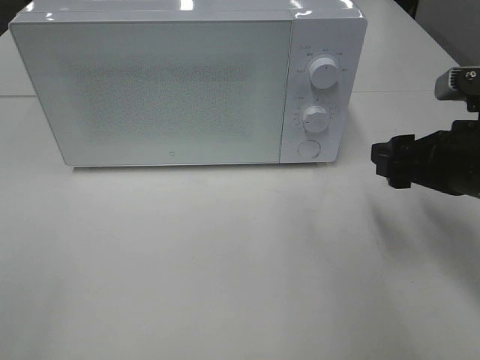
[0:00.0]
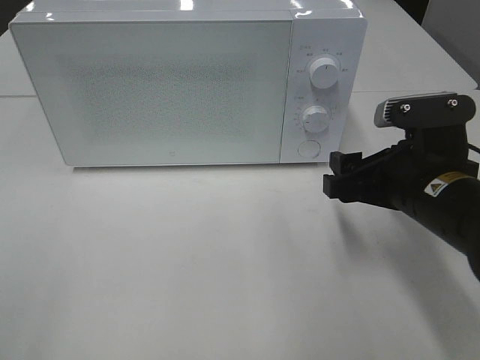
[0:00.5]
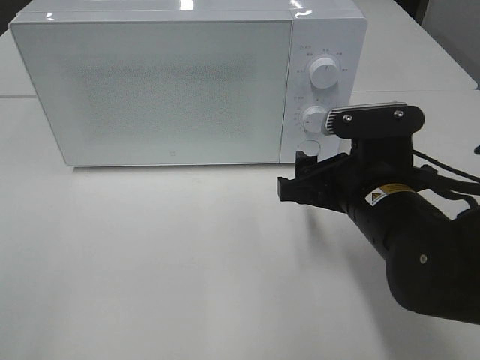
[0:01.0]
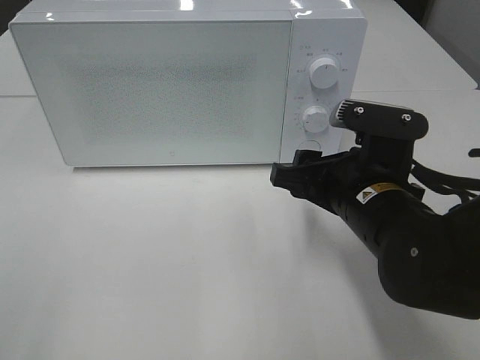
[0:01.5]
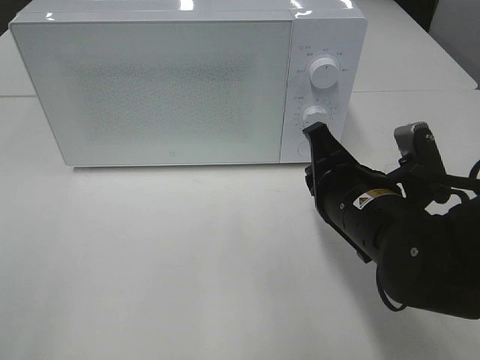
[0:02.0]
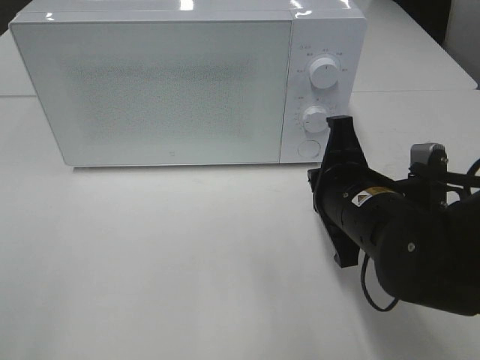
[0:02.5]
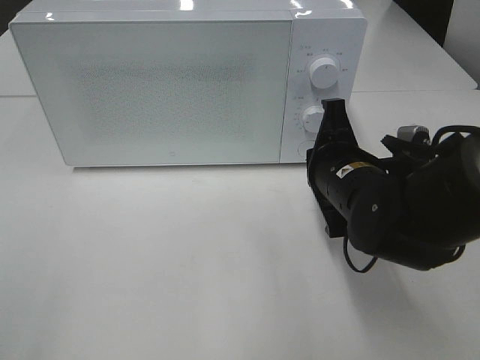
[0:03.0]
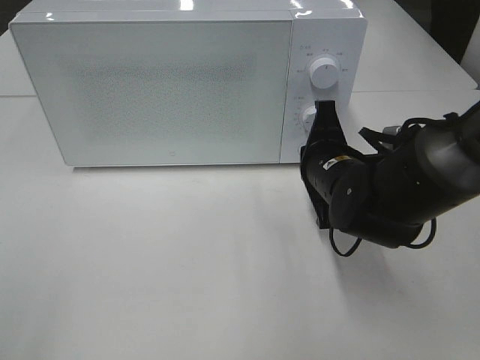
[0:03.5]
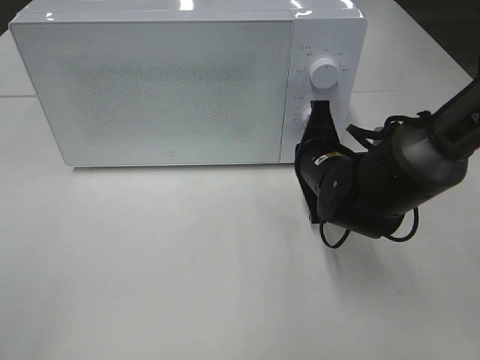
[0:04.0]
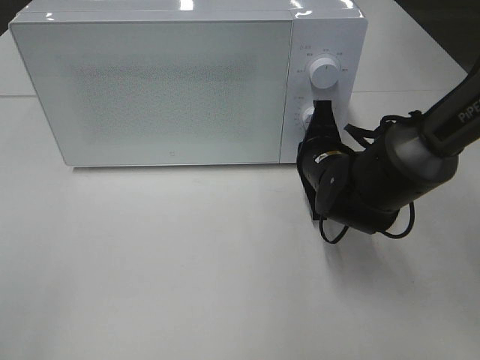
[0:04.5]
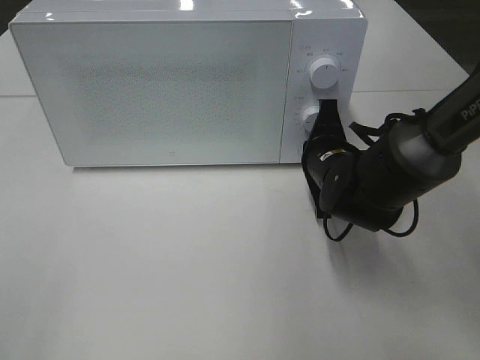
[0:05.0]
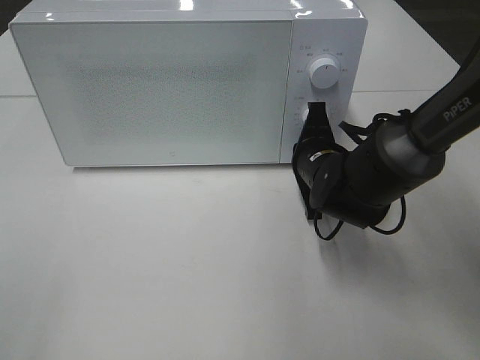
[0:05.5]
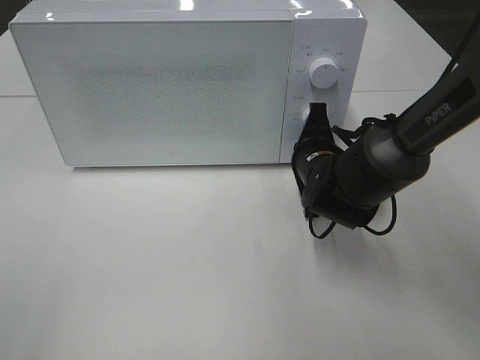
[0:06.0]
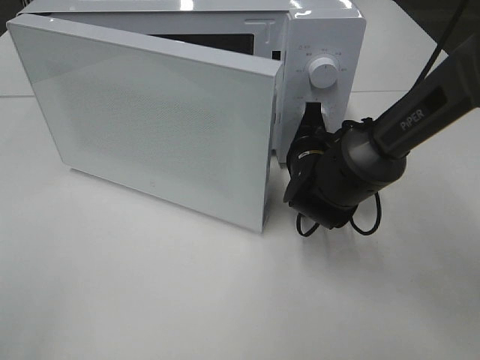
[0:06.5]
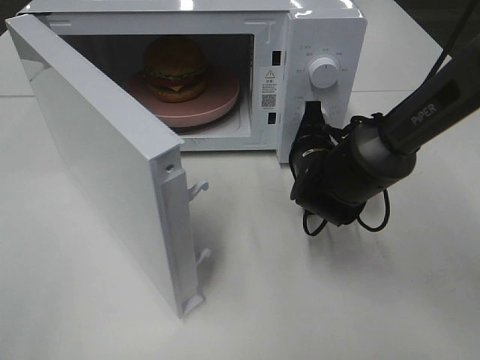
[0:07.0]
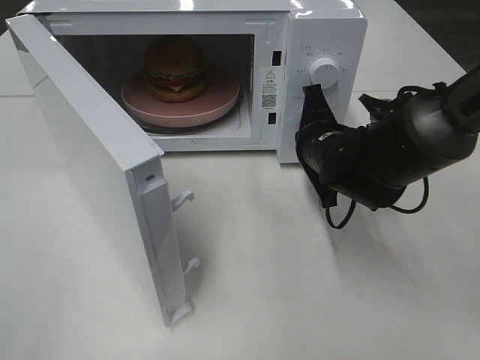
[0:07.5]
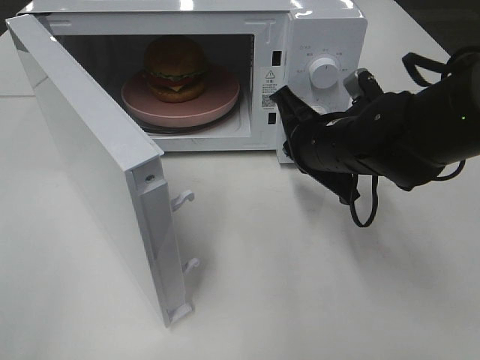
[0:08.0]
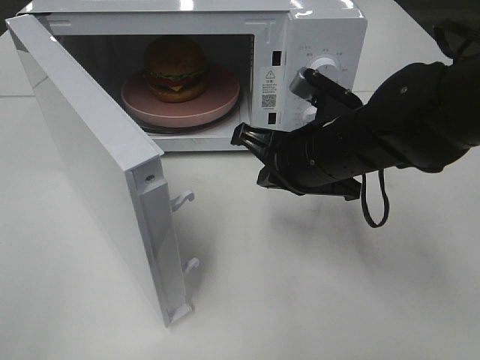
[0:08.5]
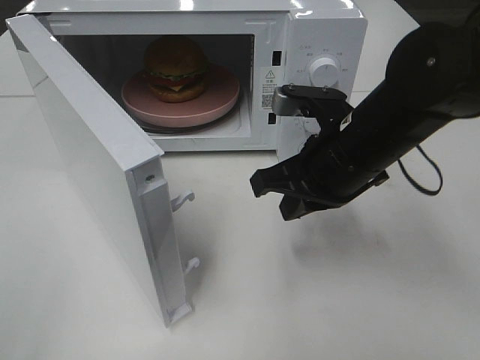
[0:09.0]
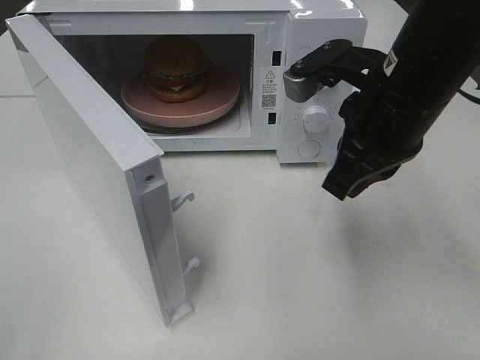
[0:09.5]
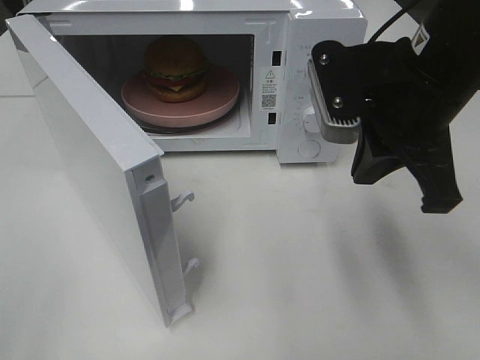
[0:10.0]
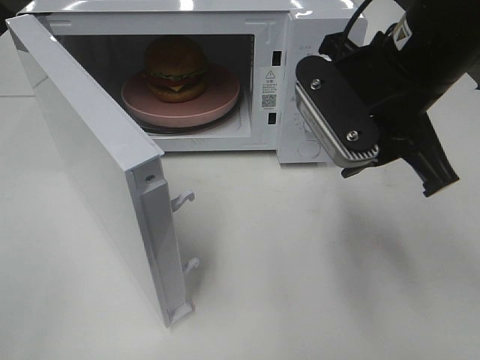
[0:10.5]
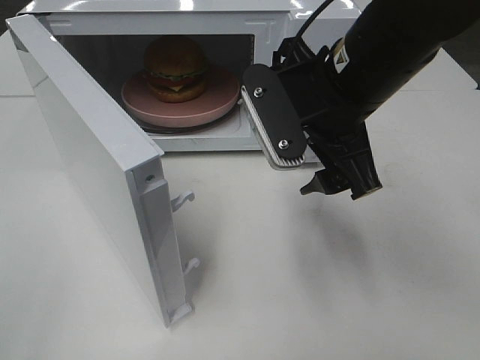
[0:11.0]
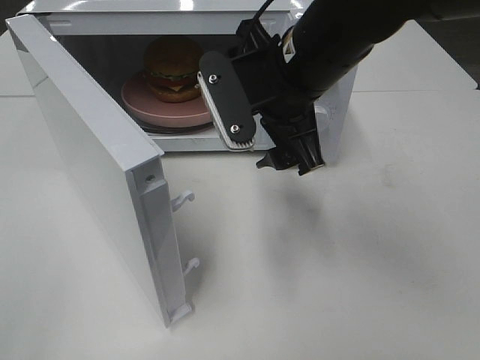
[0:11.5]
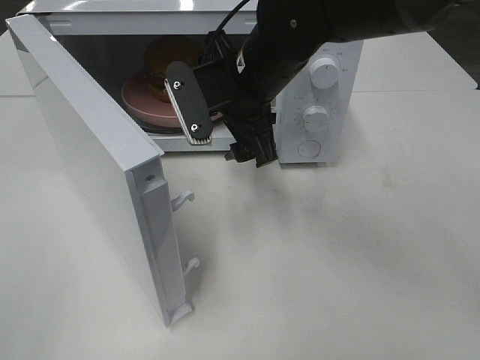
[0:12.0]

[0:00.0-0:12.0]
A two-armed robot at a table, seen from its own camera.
Task of the whole recording: Heat the burger.
Step, 0.0 to 7.0 s: Right hand: press the switch.
0.0 to 2.0 s: The right gripper heads to the left, covering some 10 cm, and closes.
2.0 to 4.0 s: The right gripper goes about 10 cm forward.
4.0 to 6.0 s: The grippers make only small movements.
6.0 to 8.0 s: The right gripper travels upward by roughly 5 cm.
8.0 to 10.0 s: The right gripper heads upward and backward, covering approximately 15 cm.
10.0 to 12.0 s: The right gripper heads to the left, forward and downward, covering approximately 15 cm, and opens.

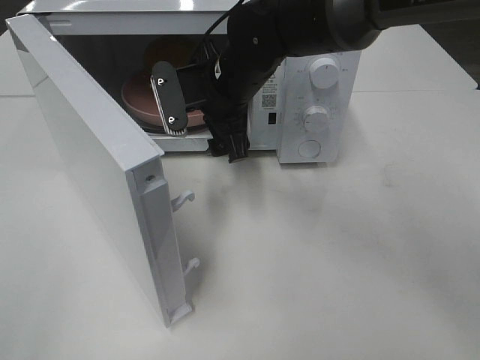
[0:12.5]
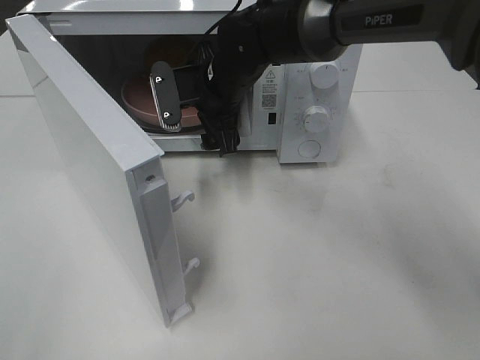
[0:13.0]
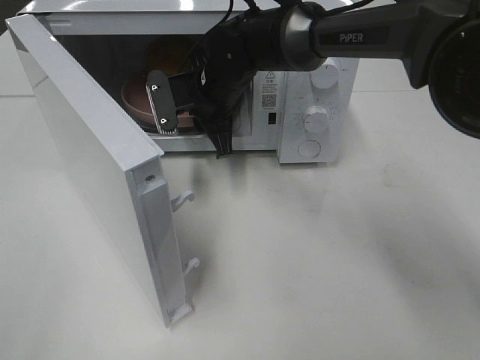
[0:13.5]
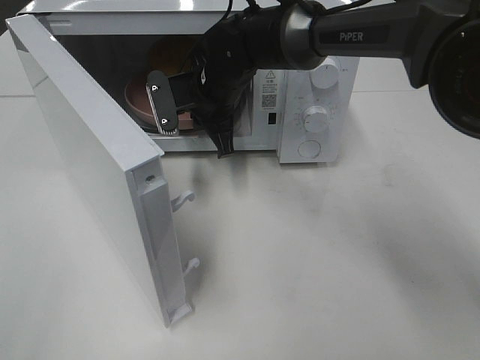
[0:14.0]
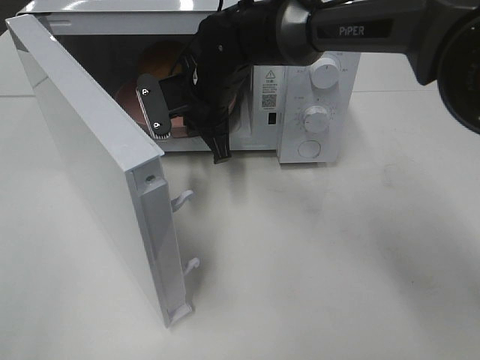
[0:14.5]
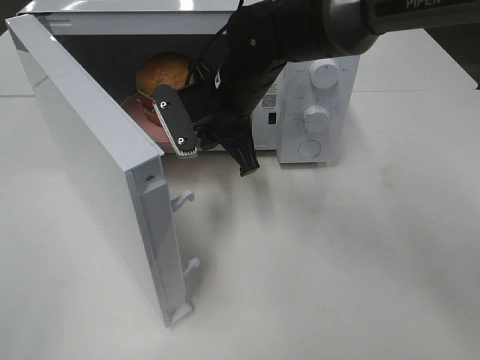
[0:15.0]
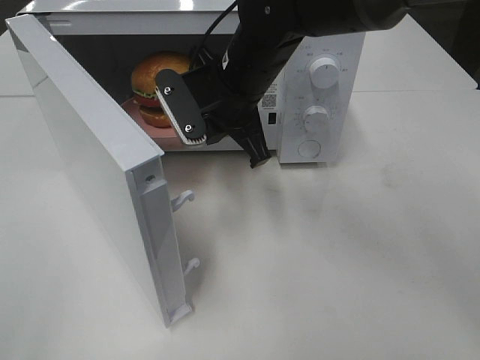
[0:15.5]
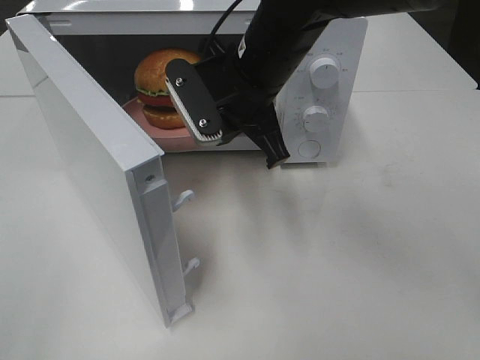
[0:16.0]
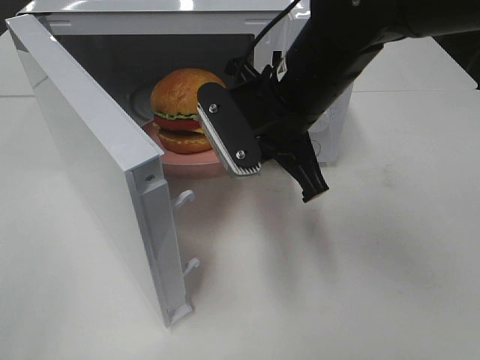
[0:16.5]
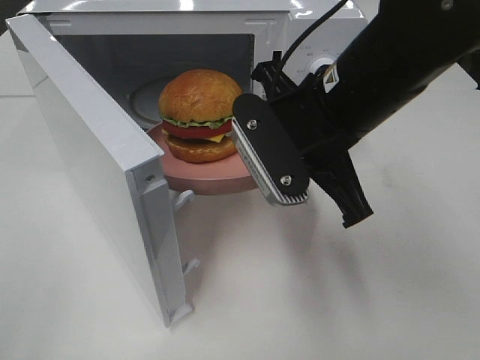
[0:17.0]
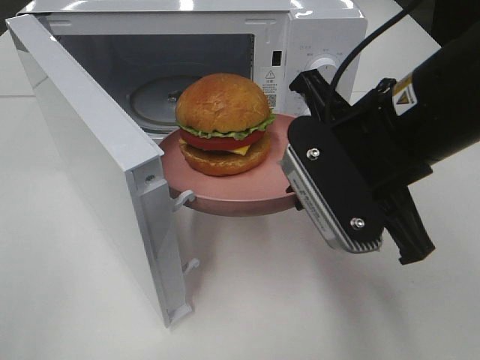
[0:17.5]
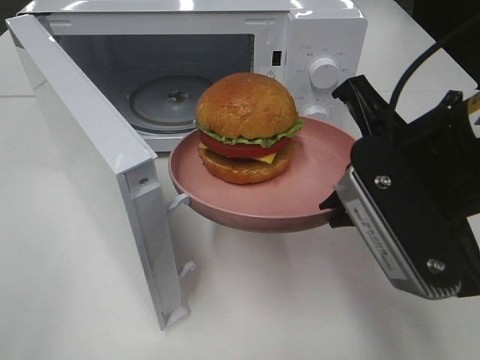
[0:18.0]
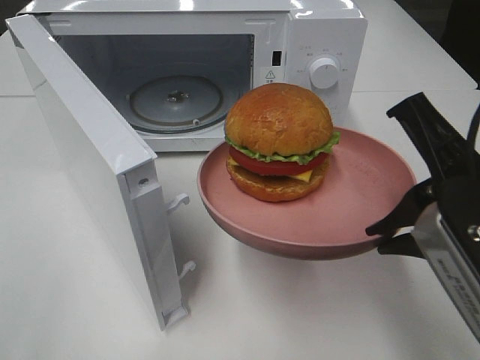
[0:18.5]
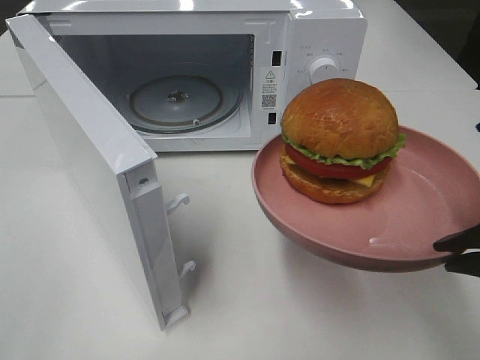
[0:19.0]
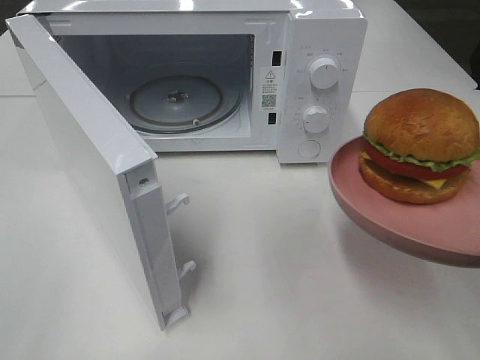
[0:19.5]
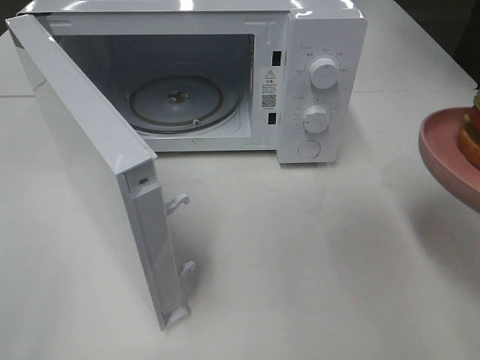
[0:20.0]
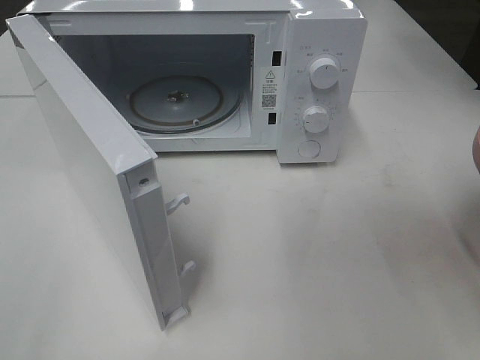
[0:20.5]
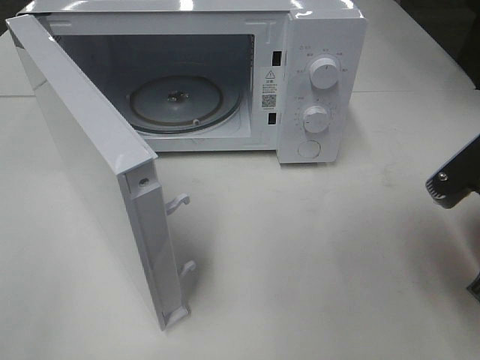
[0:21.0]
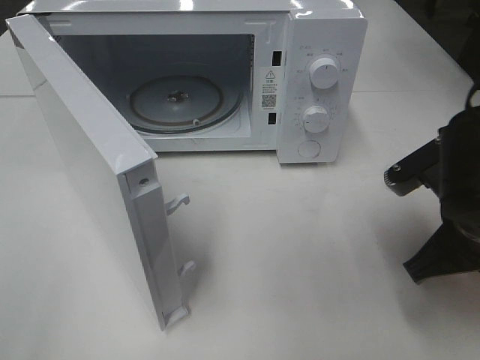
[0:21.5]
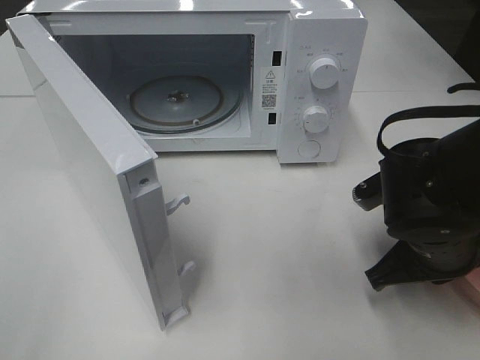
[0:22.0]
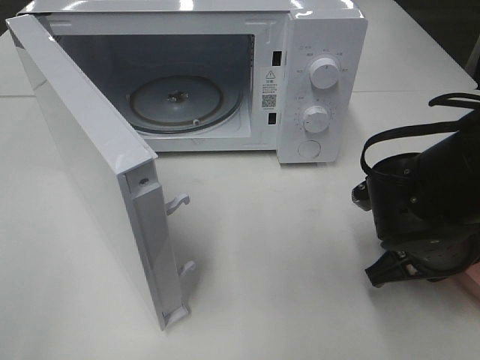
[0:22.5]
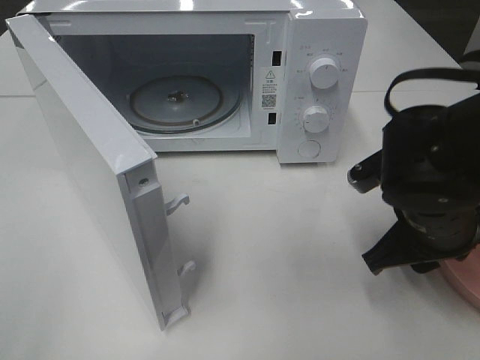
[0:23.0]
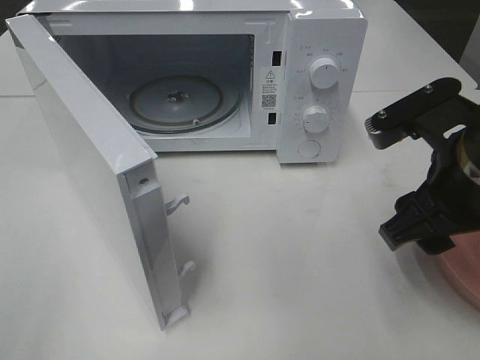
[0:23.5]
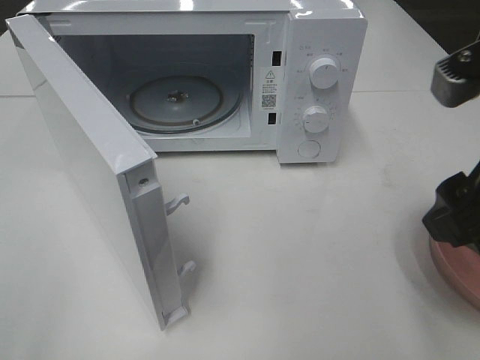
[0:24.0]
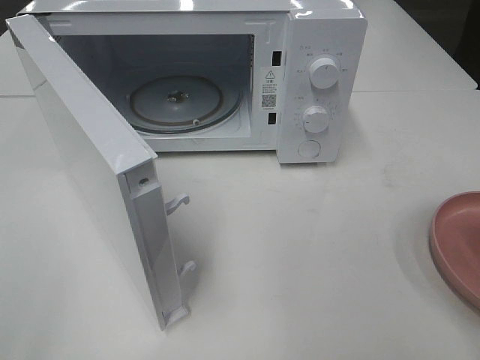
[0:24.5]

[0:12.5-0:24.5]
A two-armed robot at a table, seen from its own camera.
Task of the whole recording: Heat the burger.
Step, 14.0 to 22.5 s: Right hand: place the plate on the table.
12.5 to 14.5 s: The right gripper closes up.
14.5 to 16.5 s: The right gripper goes some 15 cm backward, to the right and upward.
16.5 to 18.5 s: The right gripper goes approximately 20 cm backward and to the right.
18.5 to 20.5 s: The right gripper goes some 5 cm to the right.
20.5 to 22.5 s: The right gripper travels downward, forward and to the left by approximately 15 cm.
22.5 to 24.5 s: The right gripper goes roughly 25 cm upward and backward, and opens.

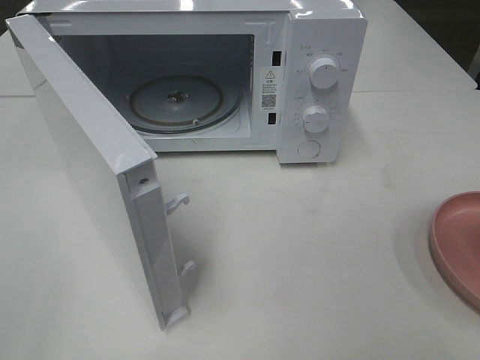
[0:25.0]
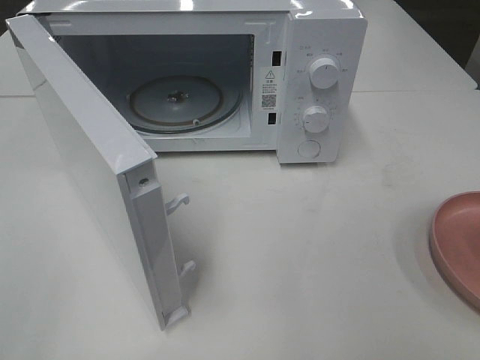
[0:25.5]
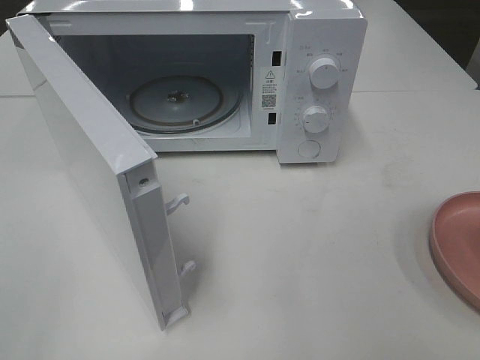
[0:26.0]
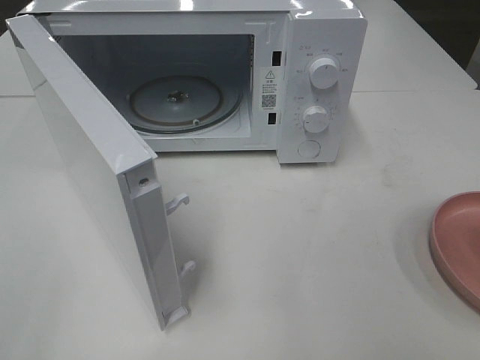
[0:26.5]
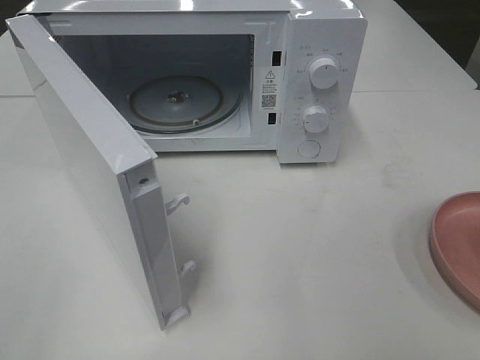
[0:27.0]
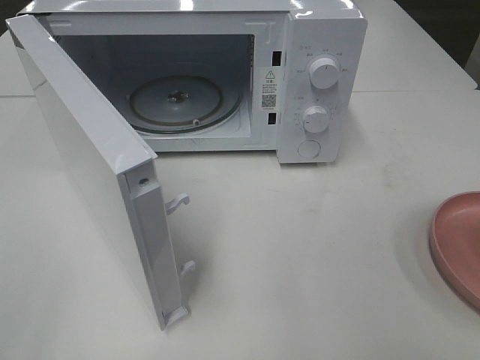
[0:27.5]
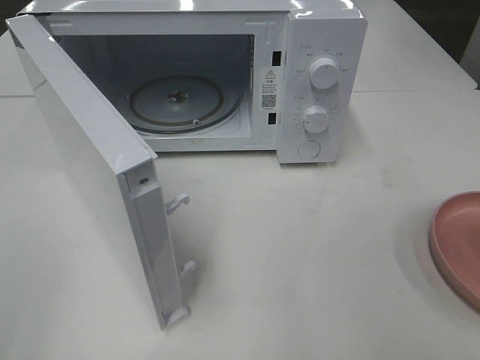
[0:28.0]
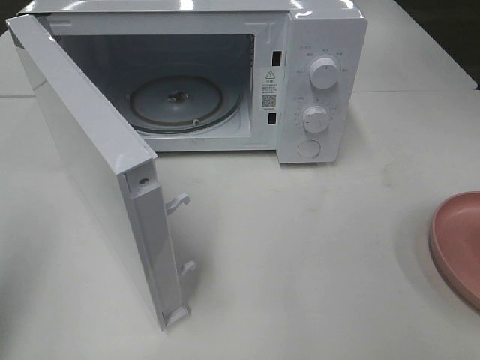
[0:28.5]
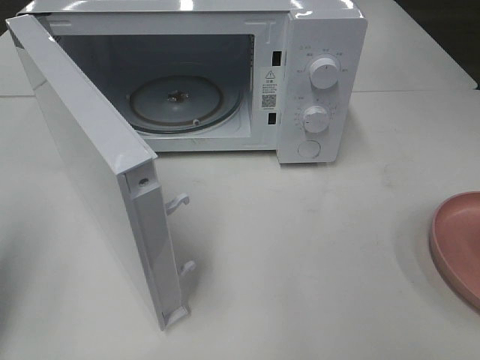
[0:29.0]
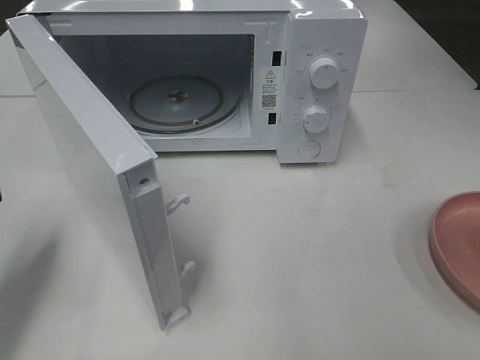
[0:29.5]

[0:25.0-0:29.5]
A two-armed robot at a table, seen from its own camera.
Task of the whole recording: Heat the burger.
27.0 to 29.5 s: The left gripper goes about 20 cm forward and downward, and closes.
